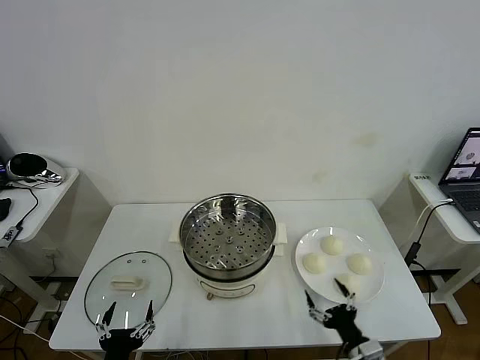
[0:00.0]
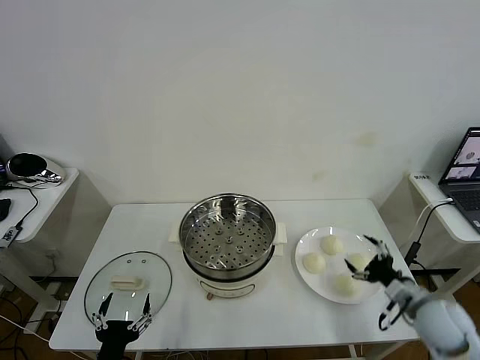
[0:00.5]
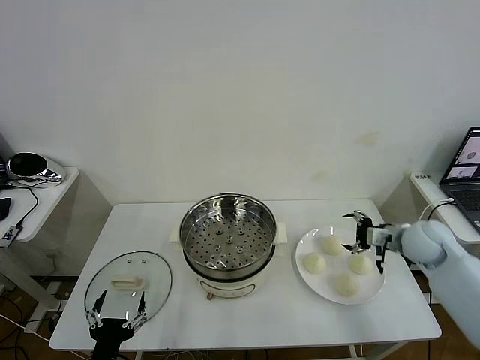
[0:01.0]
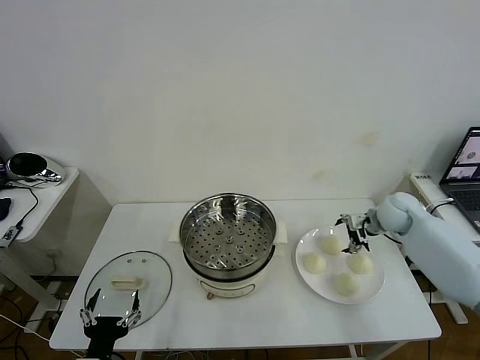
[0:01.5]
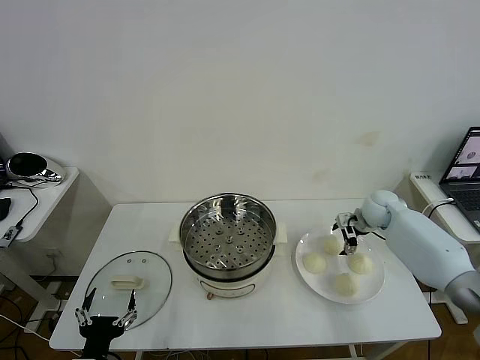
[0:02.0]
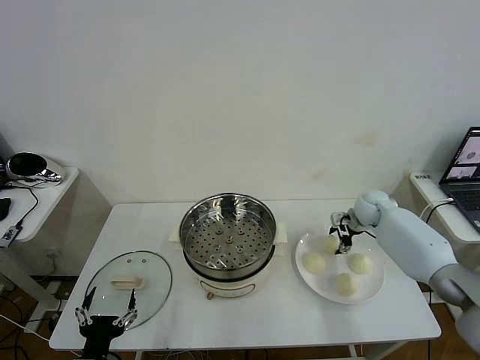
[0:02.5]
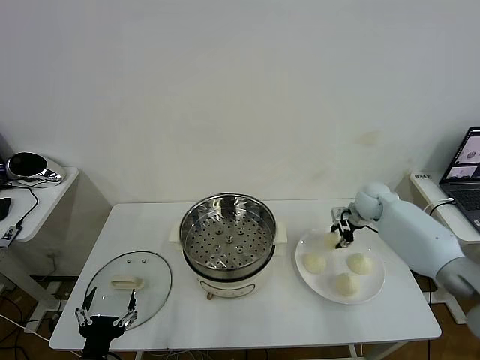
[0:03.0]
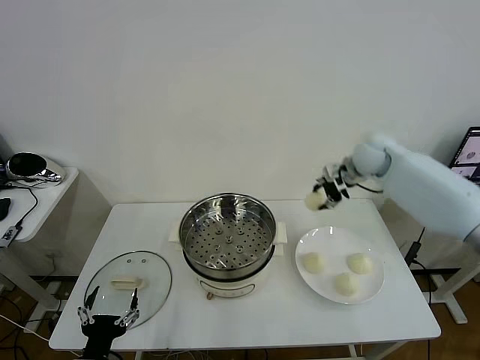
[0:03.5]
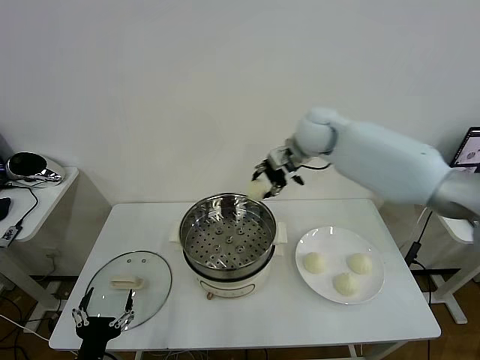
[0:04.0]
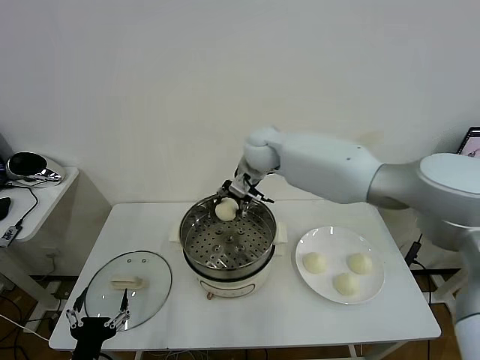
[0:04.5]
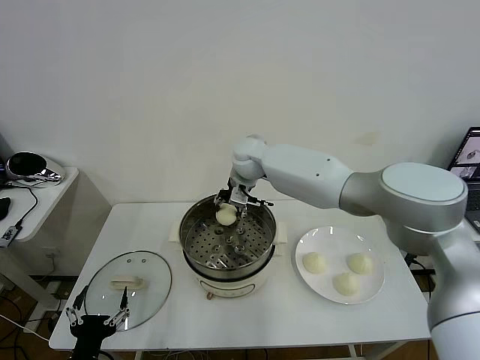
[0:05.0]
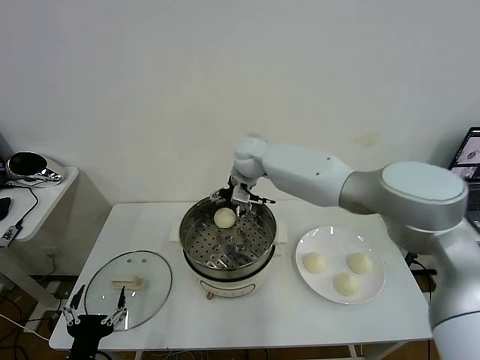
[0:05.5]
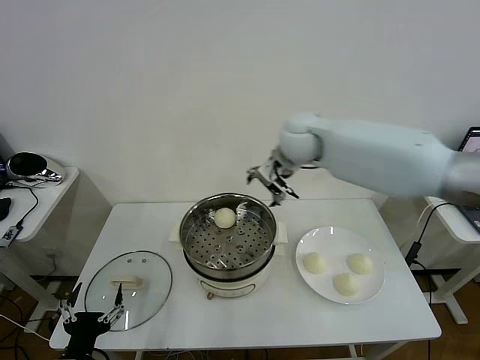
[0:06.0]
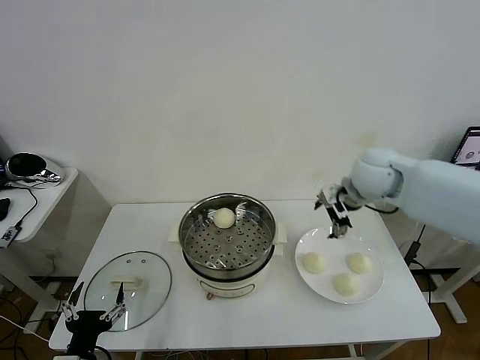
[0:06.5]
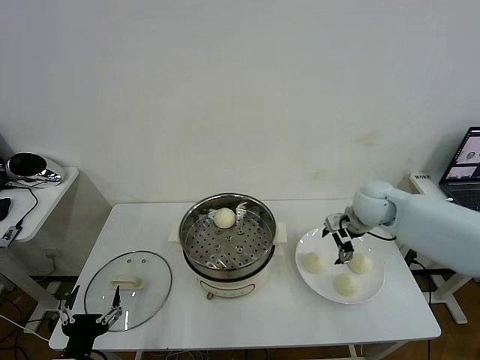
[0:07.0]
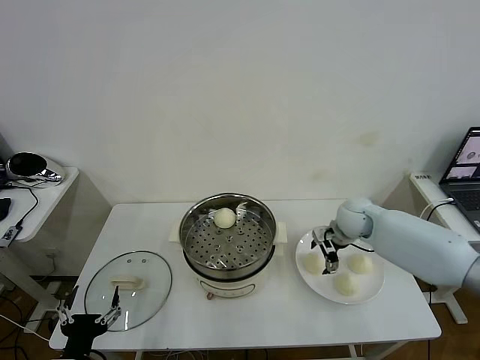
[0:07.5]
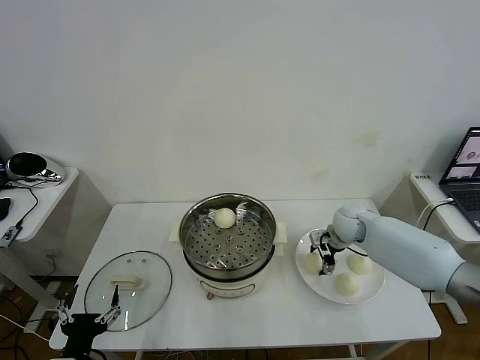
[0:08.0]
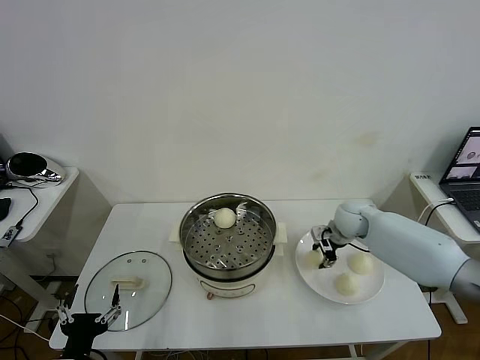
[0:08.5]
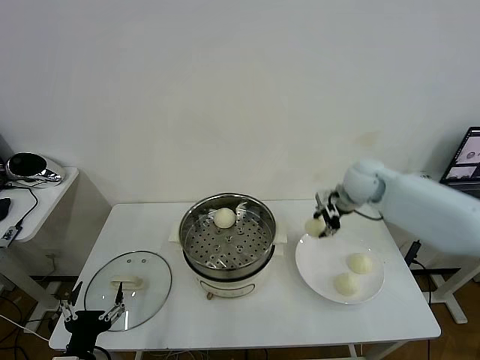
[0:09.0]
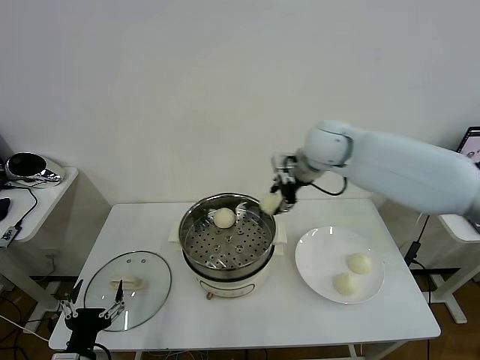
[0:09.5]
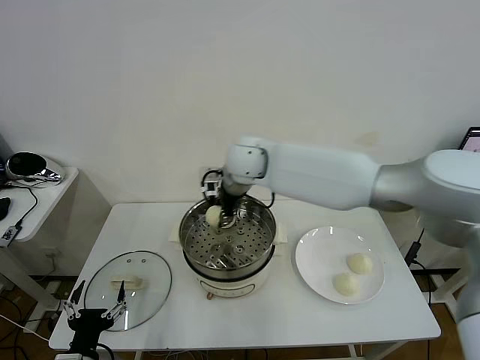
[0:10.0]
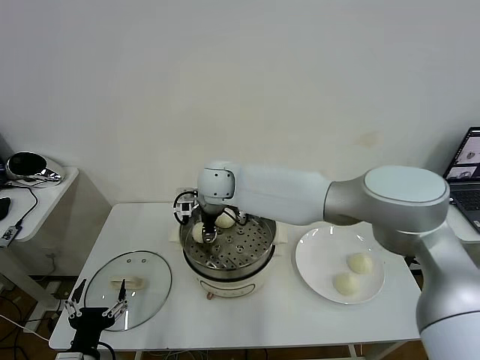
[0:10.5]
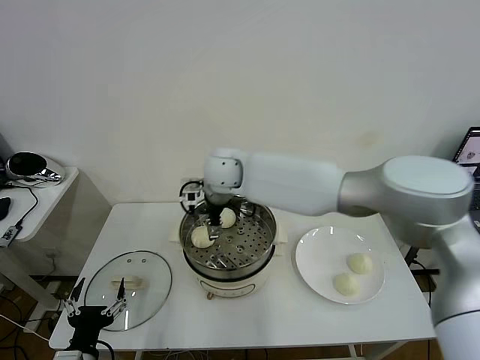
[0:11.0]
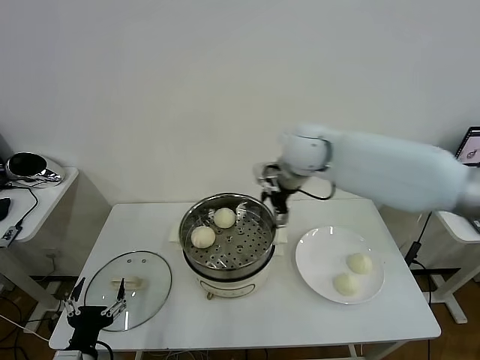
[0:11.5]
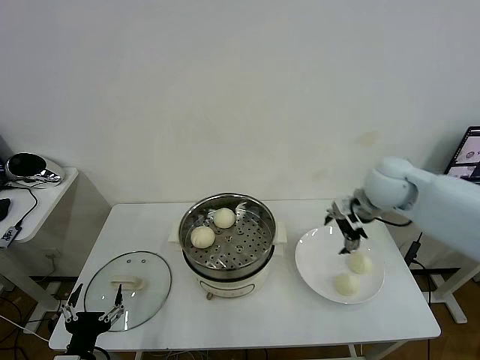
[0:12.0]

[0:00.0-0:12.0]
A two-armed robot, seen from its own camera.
Task of the whole recording: take steamed baozi put them in steamer then cover it.
Step, 0:00.0 to 0:02.5: Grasp the baozi in the plate with right gripper.
Step, 0:03.0 to 0:05.0: Place the baozi on the steamer with right gripper.
Step, 0:06.0 to 0:08.0: Grasp the baozi in the plate with right gripper.
Step, 0:08.5 to 0:10.5: Place the baozi on the steamer with right gripper.
0:02.0 to 0:04.0: The right gripper travels to the left and upward by about 30 cm, and closes up.
0:04.0 to 0:06.0: The right gripper heads backward, covering roughly 5 cm, reaches about 10 cm to the left, then returns, and opens up.
0:06.0 to 0:08.0: The right gripper travels downward and to the right by approximately 25 cm.
0:08.0 to 0:10.0: The right gripper moves to the left and upward, some 35 cm, and closes.
0:10.0 to 0:12.0: The right gripper goes roughly 30 cm to the right, and opens its fingers.

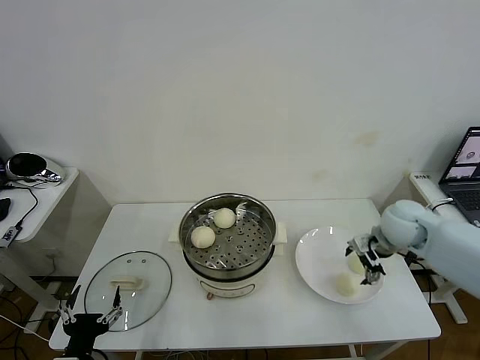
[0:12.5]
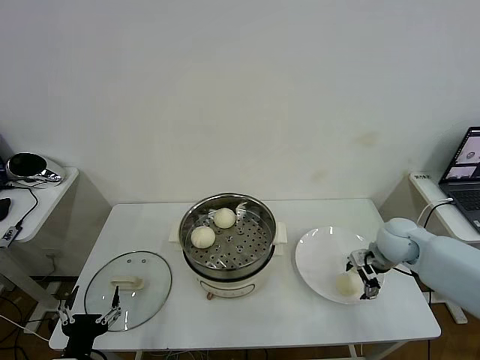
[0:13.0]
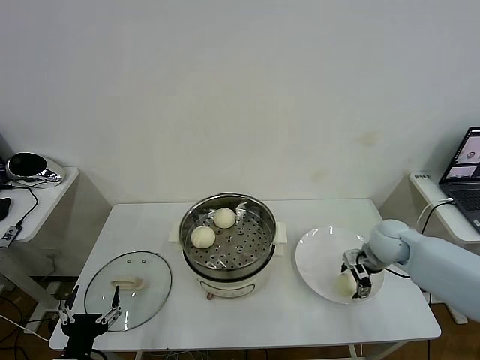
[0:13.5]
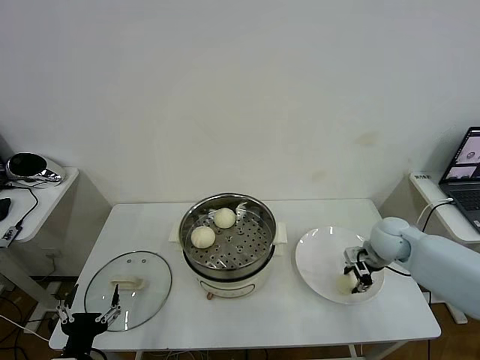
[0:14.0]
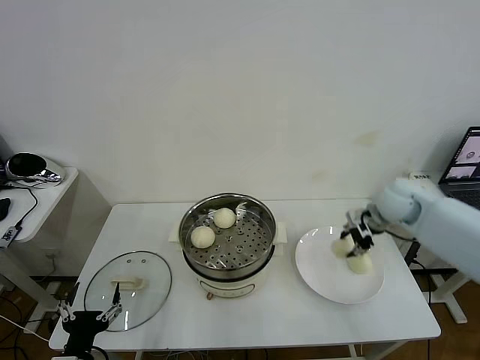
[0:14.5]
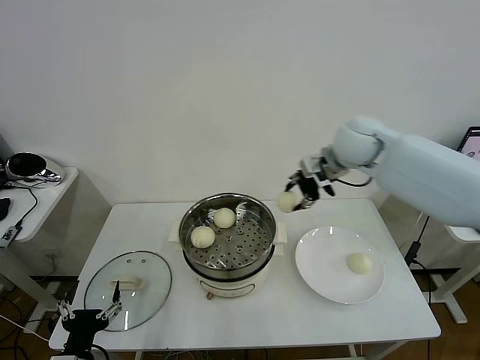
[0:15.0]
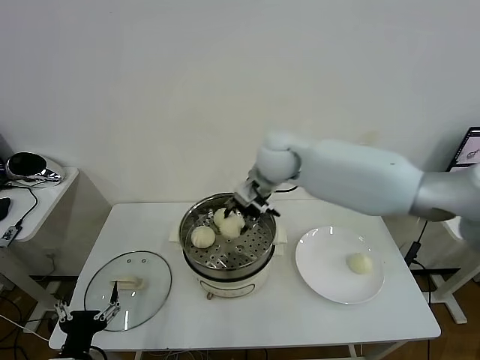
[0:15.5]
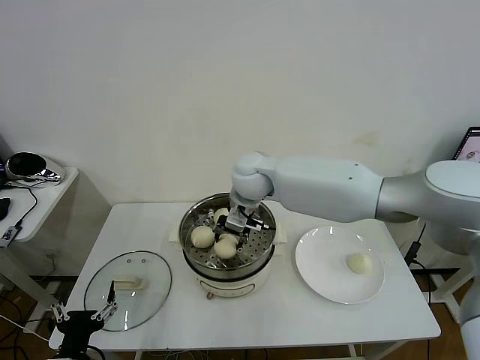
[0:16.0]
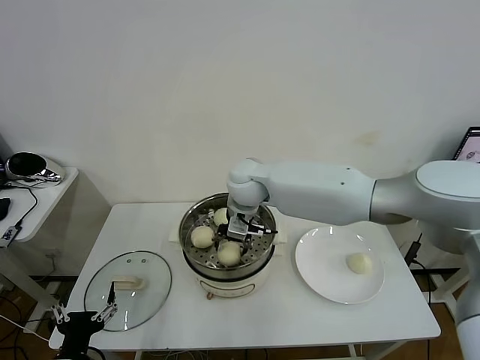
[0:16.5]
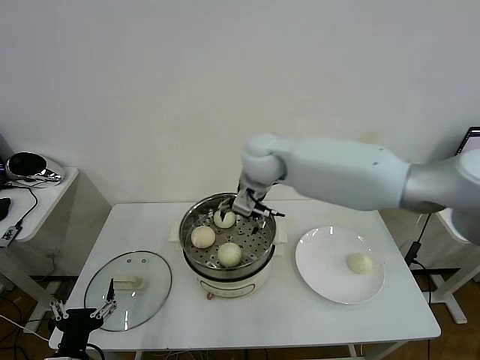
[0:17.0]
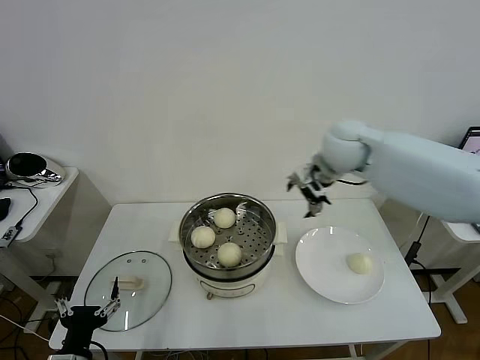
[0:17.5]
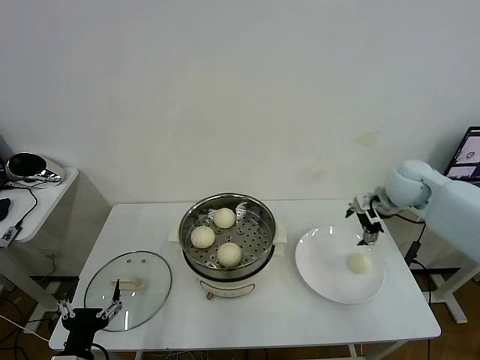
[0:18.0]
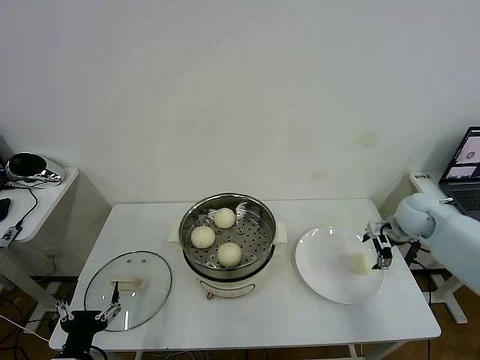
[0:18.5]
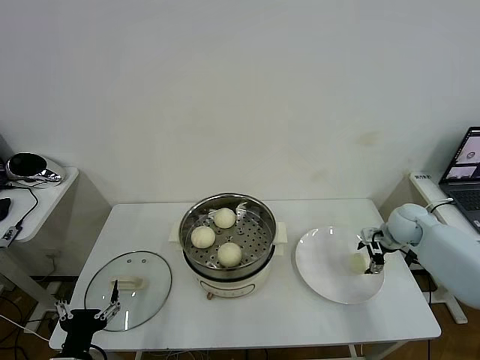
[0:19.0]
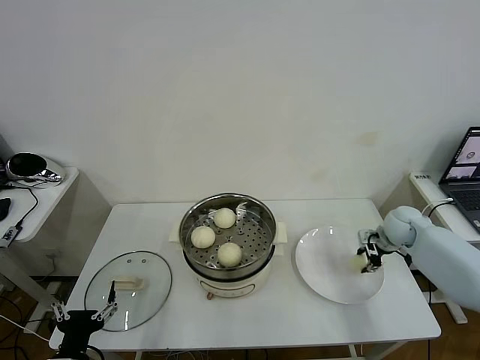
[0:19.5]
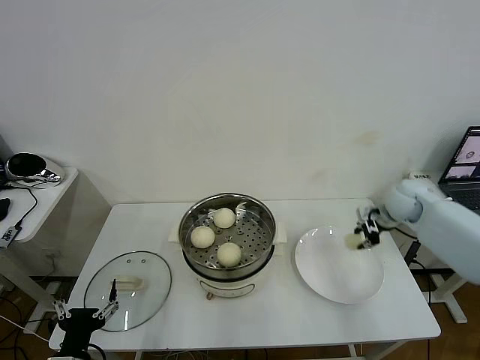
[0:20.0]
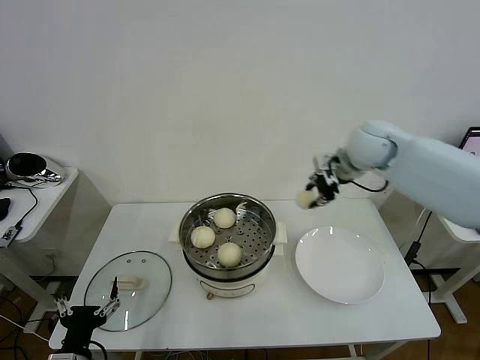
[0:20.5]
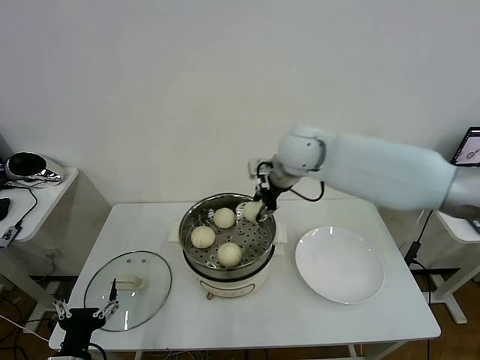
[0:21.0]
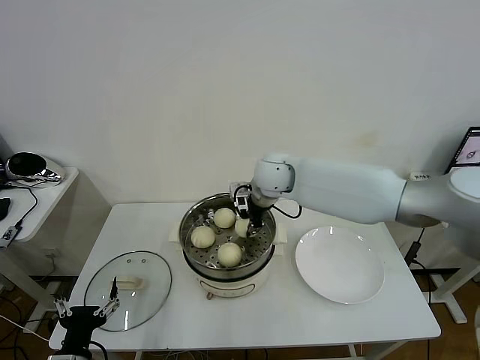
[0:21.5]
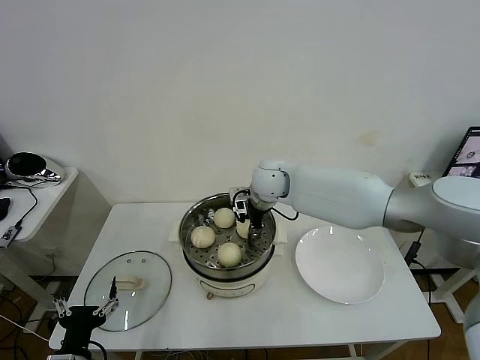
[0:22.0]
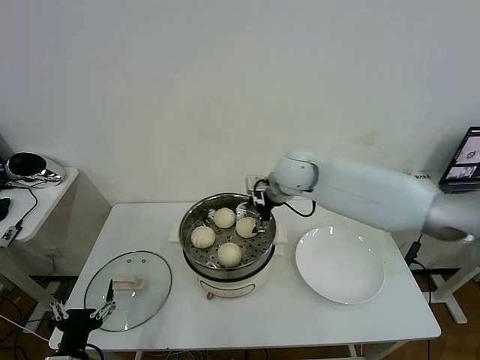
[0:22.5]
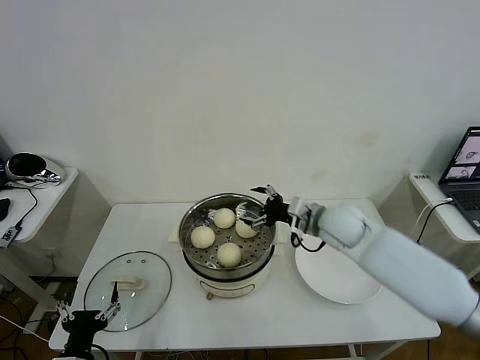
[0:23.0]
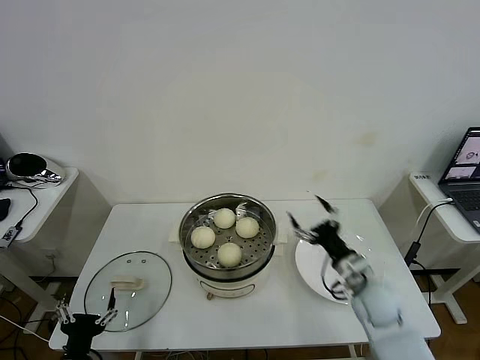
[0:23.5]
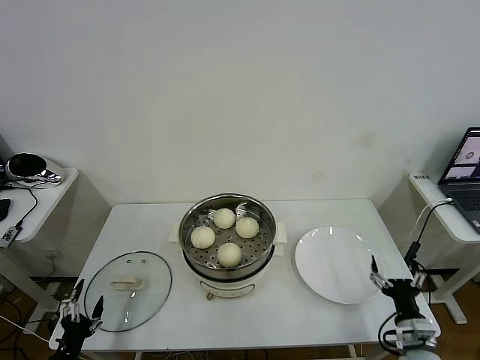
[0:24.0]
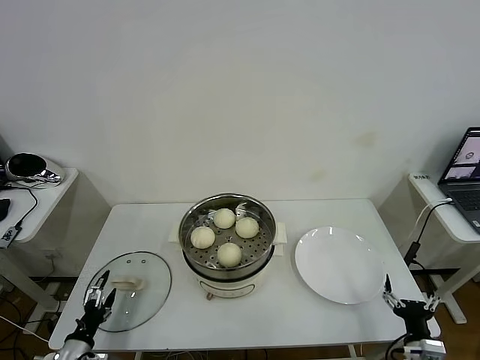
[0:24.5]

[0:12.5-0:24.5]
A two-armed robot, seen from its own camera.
Task of the whole recording: take steamed baozi put them in steamer then cover it.
Step, 0:14.0 to 0:16.5: Place the baozi on the steamer with right gripper.
Step, 0:17.0 to 0:19.5: Grasp the baozi in the plate with right gripper.
Step, 0:20.0 to 0:22.0: Place the baozi on the steamer with right gripper.
0:12.5 to 0:14.5: The right gripper heads upward and forward, covering roughly 10 cm, and closes its fingers.
0:14.5 to 0:16.5: The right gripper is displaced to the left by roughly 35 cm, and opens up.
0:16.5 to 0:18.5: The right gripper moves to the right, some 40 cm, and opens up.
0:18.5 to 0:20.5: The right gripper shifts about 25 cm upward and to the left, and closes.
0:20.5 to 0:22.5: The right gripper travels to the left and downward by roughly 15 cm, and opens.
0:22.5 to 0:24.5: The right gripper moves backward, downward and to the right, about 50 cm; the left gripper shifts about 15 cm downward, to the left and forward.

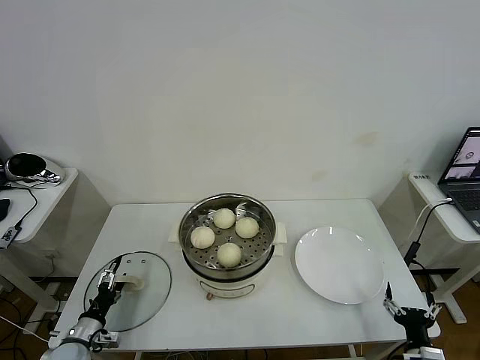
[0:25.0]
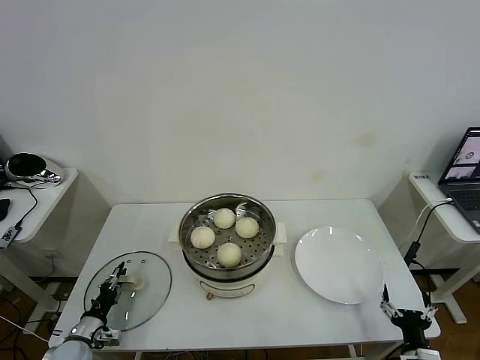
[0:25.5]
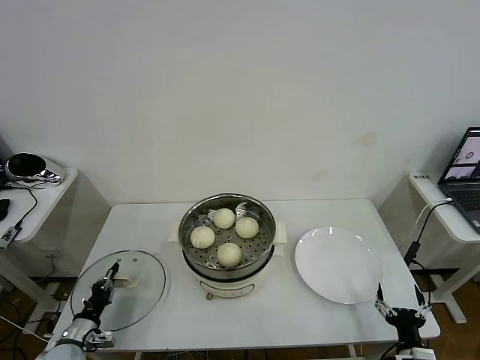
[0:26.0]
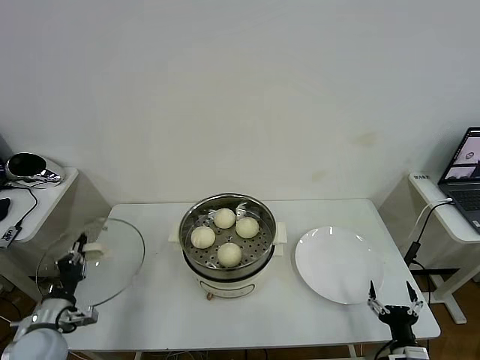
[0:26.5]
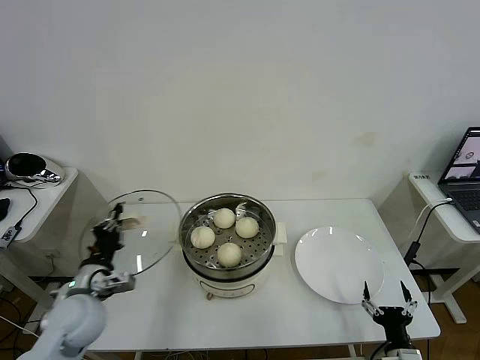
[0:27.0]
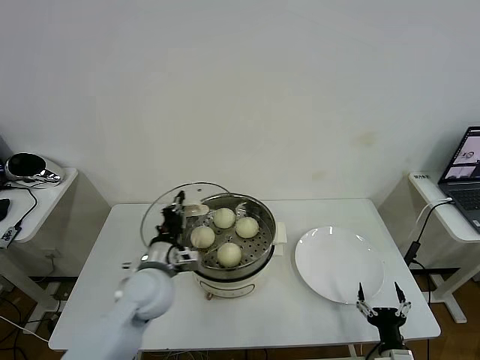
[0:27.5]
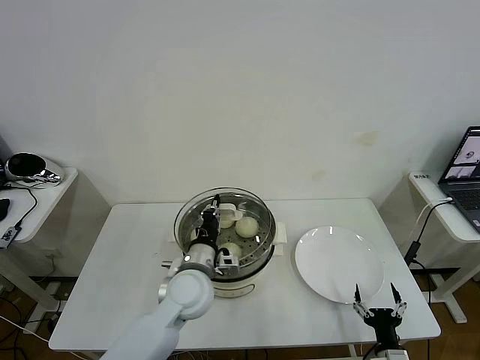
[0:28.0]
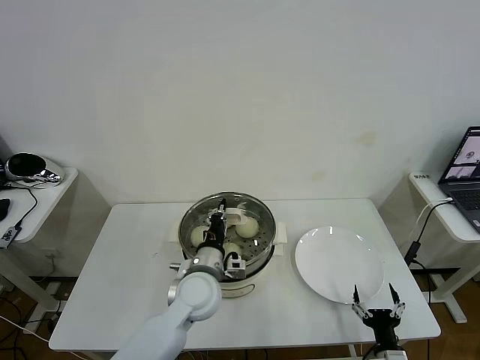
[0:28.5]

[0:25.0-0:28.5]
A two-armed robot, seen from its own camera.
Task of the whole recording: take steamed baozi put them in steamer then cover it.
0:25.0 to 0:27.0: The left gripper shifts approximately 20 cm upward and to the right, and closes.
0:27.0 to 0:28.5: The left gripper is displaced to the right by about 25 cm.
